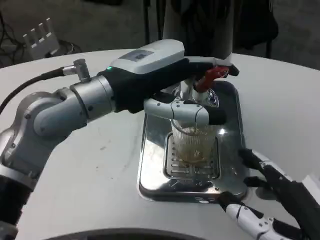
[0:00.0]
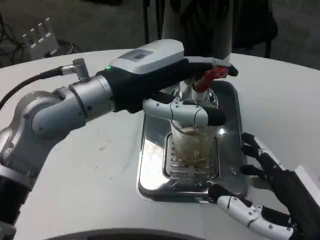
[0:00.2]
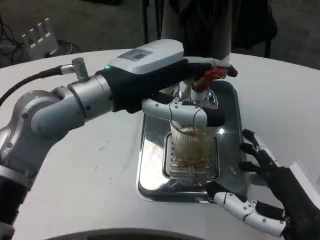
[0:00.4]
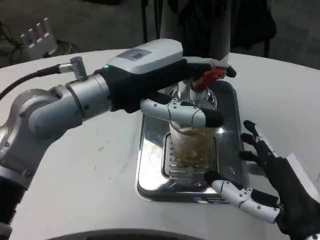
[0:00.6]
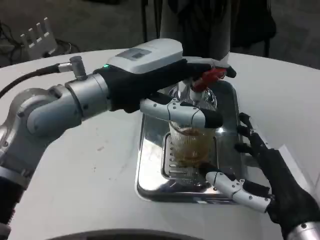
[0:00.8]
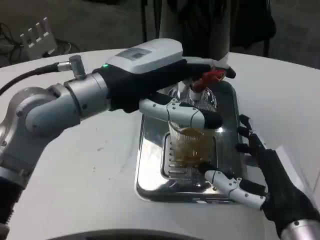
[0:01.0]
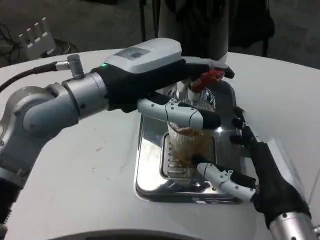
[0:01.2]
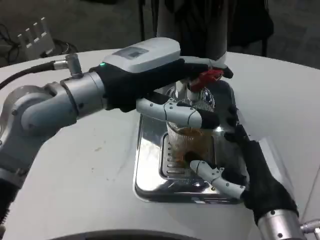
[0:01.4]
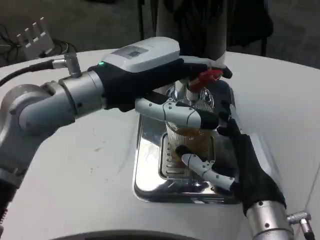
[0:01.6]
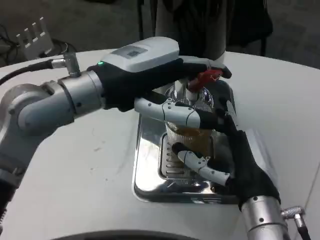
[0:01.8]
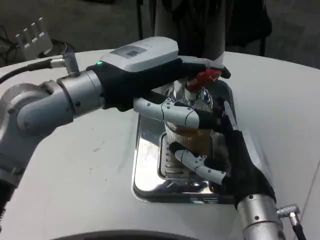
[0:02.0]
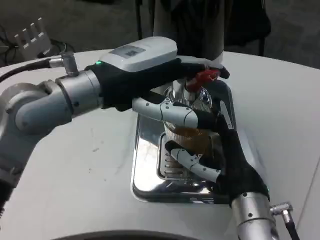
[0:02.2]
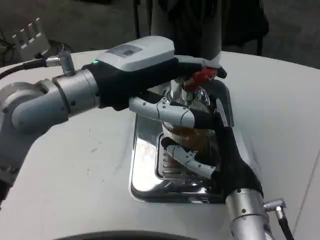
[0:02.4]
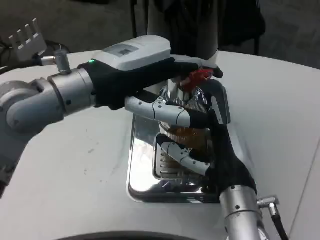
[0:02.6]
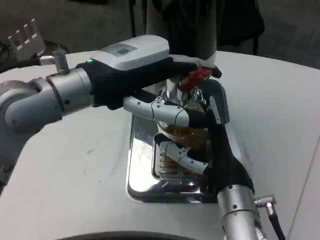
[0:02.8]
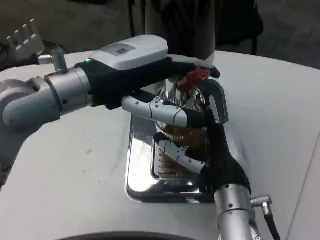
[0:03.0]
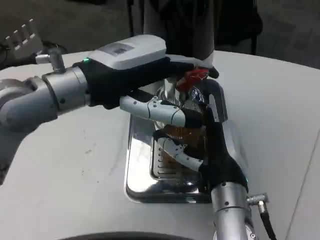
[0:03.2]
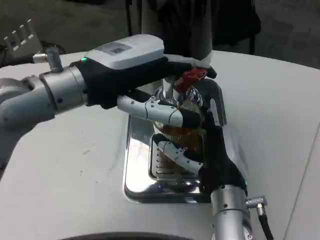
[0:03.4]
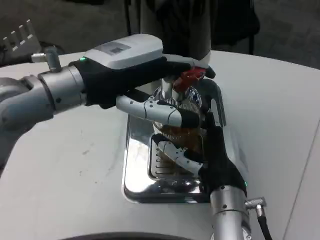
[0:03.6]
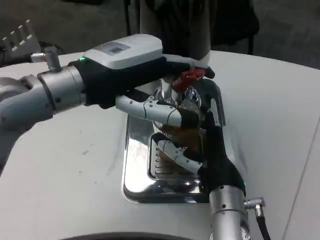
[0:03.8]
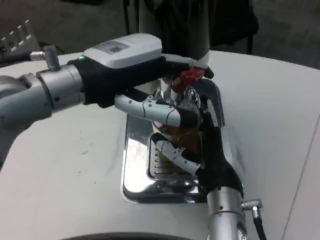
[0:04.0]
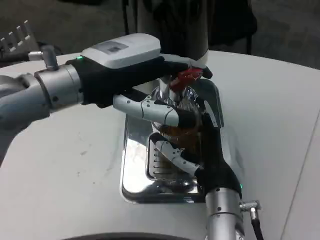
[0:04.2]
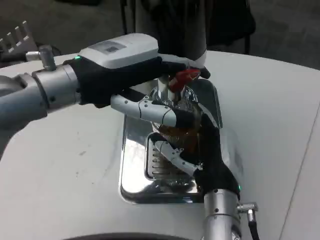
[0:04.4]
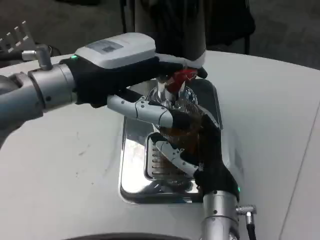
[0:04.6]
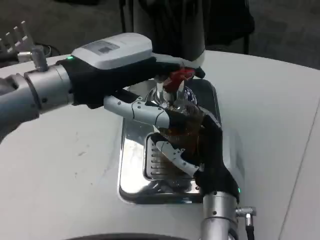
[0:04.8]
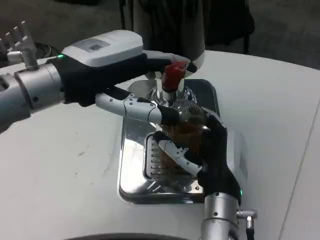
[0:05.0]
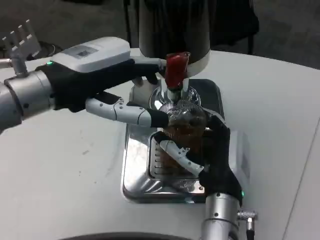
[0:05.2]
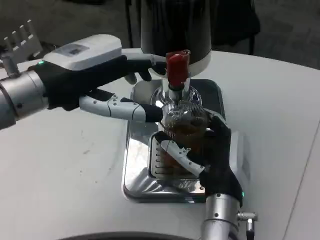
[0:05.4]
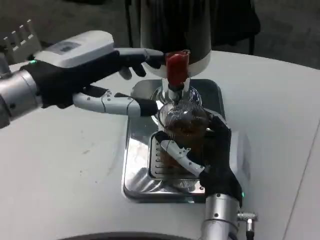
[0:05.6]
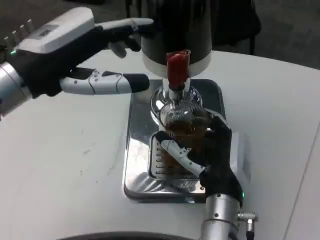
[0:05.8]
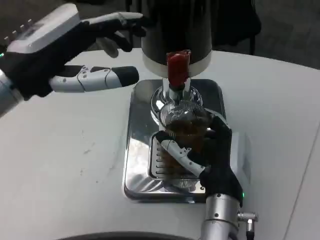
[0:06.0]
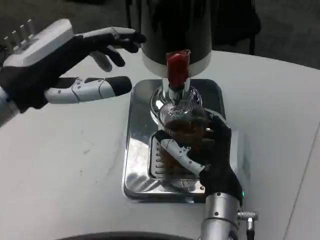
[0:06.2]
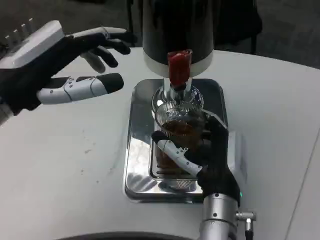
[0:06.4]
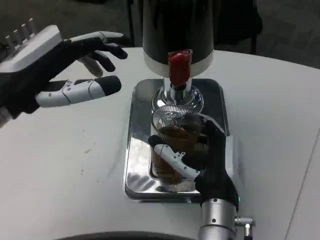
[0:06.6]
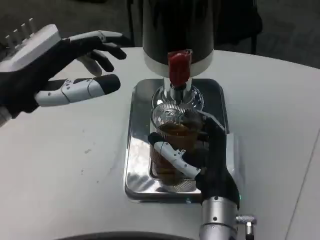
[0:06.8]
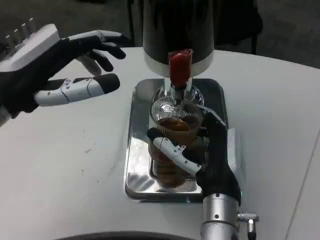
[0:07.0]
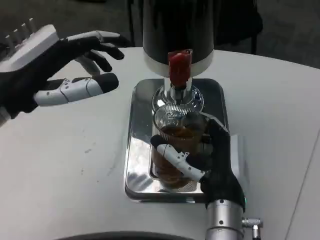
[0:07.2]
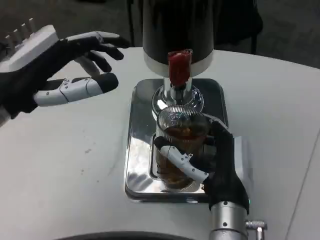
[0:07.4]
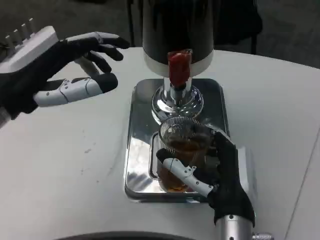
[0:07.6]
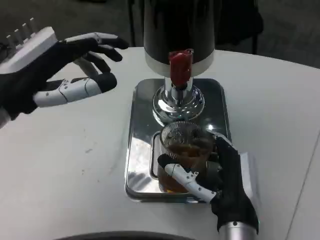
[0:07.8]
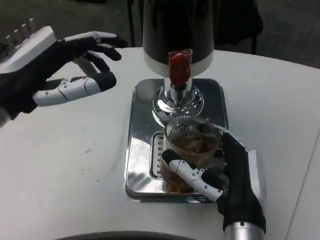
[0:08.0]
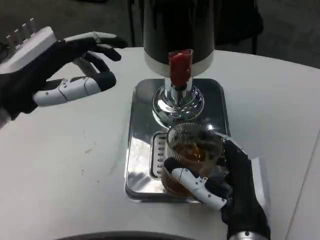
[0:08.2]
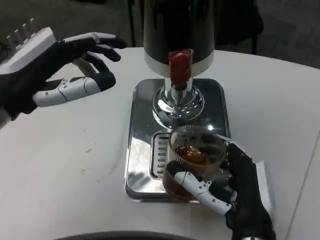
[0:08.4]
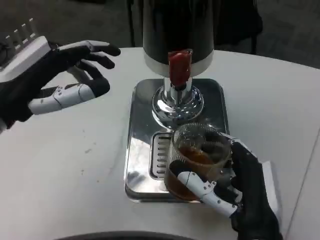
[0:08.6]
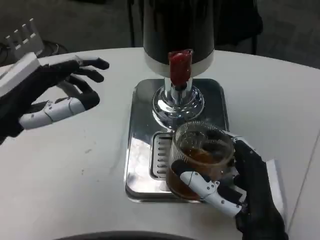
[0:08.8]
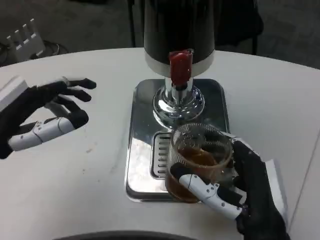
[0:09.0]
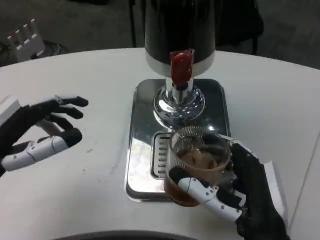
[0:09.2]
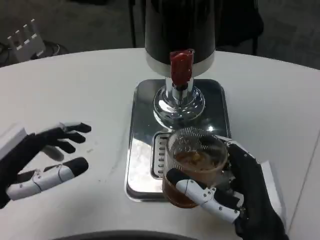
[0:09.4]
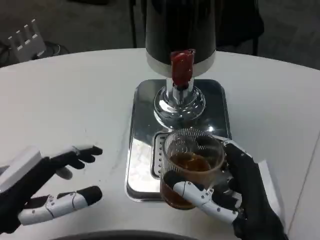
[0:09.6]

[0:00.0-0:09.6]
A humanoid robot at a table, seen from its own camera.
Task of the whole recording: Grasp the cup under the faucet to collect the drink, then remove the cup.
0:00.0 to 0:01.6: The right hand goes about 15 cm forward and to the left.
0:01.6 to 0:03.2: The right hand shifts by about 5 cm.
0:04.8 to 0:06.4: The left hand moves to the left, approximately 5 cm.
0:06.4 to 0:08.0: The right hand moves backward, roughly 5 cm.
0:08.0 to 0:09.6: The right hand ends up about 5 cm from where it was, while the left hand is displaced downward and backward by some 15 cm.

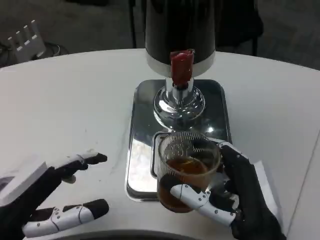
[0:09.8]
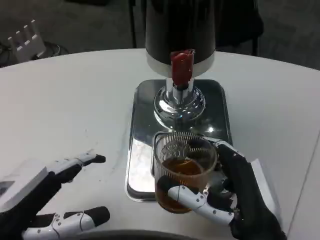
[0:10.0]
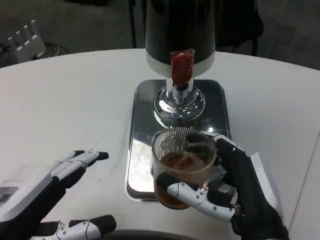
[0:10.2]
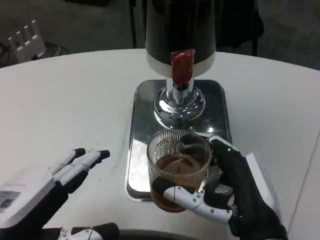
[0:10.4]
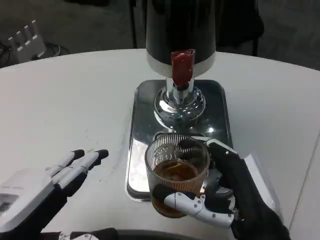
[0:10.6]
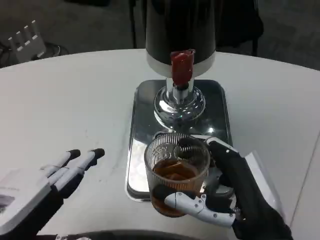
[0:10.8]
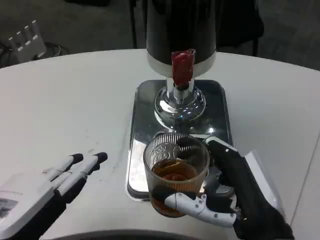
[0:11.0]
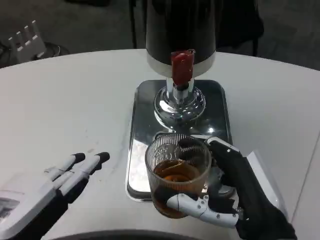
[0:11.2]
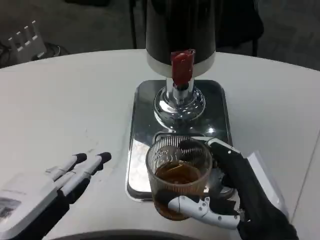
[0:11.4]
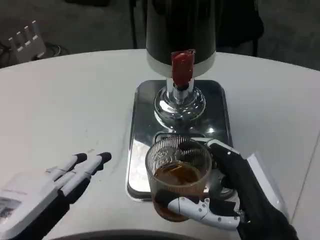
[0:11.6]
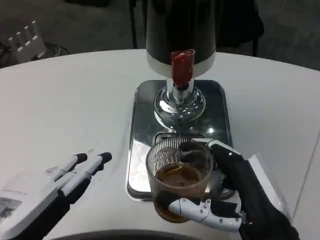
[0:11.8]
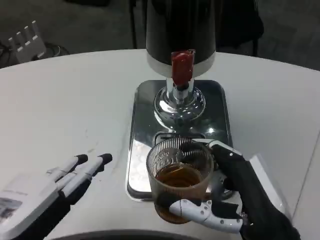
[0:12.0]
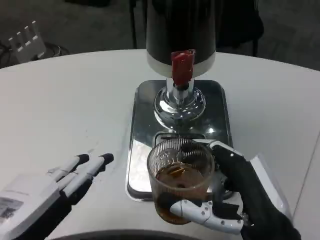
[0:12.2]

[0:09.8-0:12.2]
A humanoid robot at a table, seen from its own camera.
Task of the whole recording: Grasp the cup under the faucet to collect the drink, then remove the cup.
0:09.8 to 0:11.0: The hands move only a little.
0:11.0 to 0:12.2: Both hands stay about where they are.

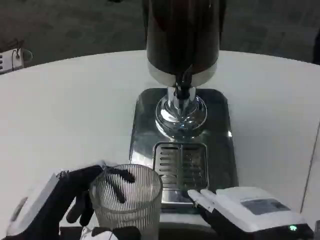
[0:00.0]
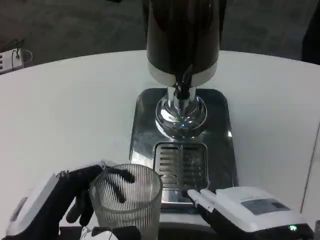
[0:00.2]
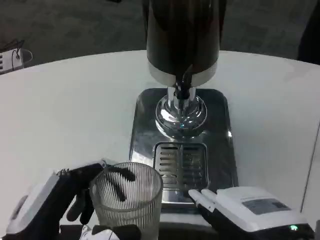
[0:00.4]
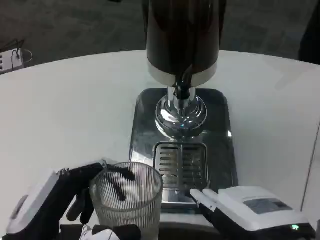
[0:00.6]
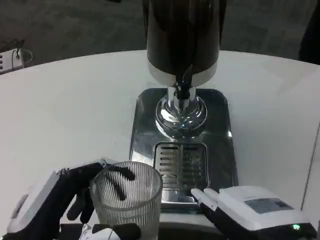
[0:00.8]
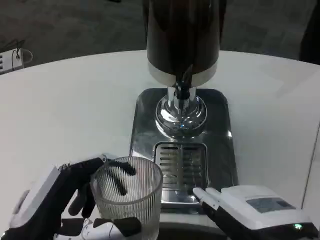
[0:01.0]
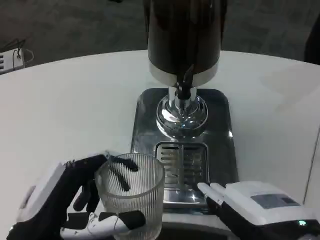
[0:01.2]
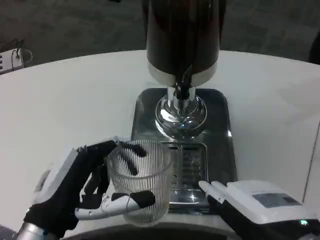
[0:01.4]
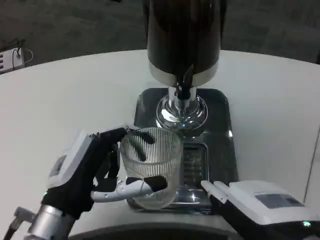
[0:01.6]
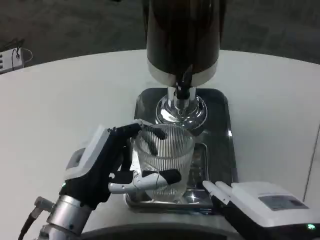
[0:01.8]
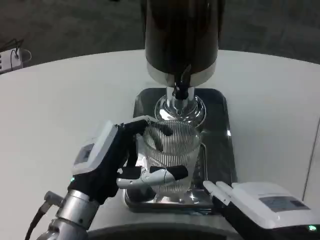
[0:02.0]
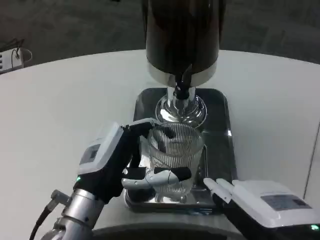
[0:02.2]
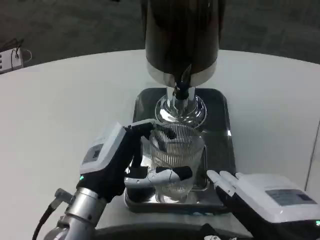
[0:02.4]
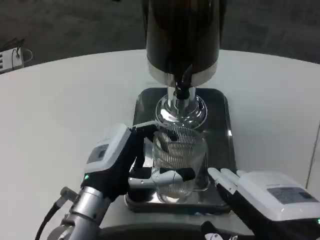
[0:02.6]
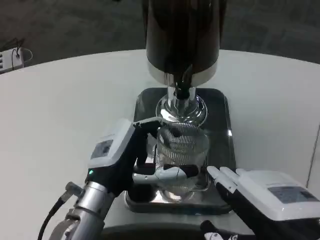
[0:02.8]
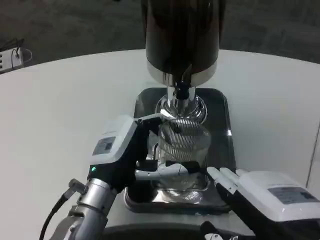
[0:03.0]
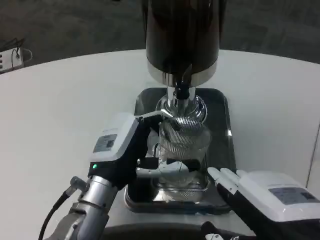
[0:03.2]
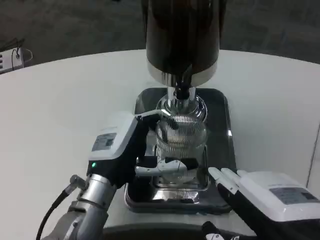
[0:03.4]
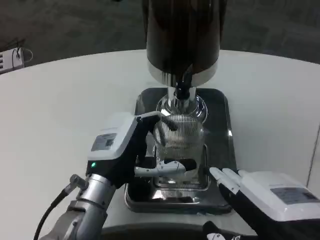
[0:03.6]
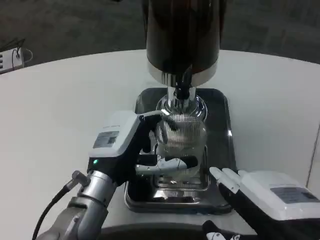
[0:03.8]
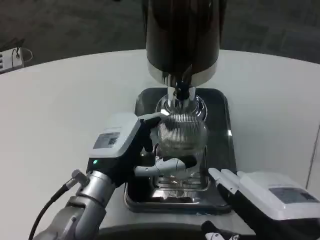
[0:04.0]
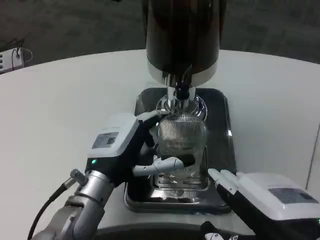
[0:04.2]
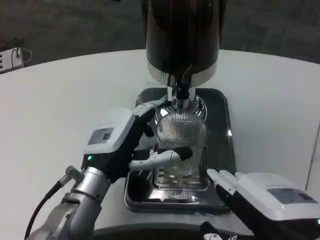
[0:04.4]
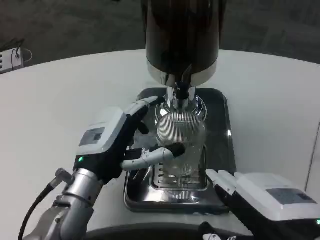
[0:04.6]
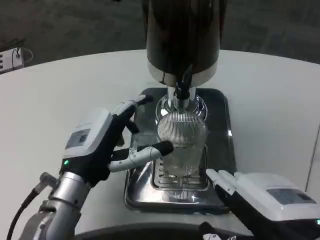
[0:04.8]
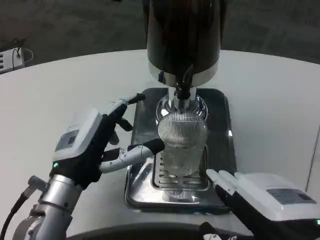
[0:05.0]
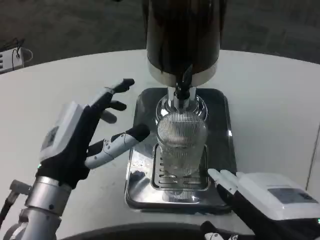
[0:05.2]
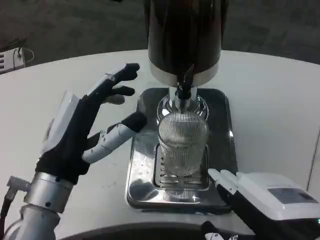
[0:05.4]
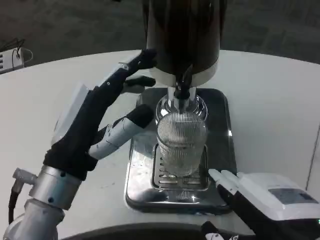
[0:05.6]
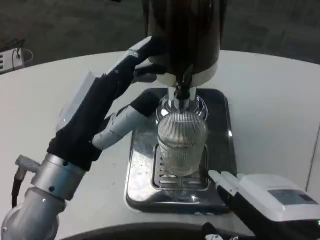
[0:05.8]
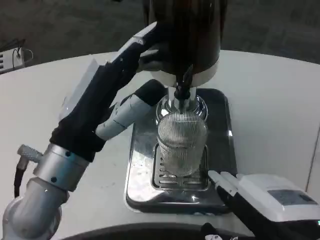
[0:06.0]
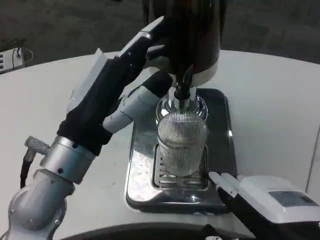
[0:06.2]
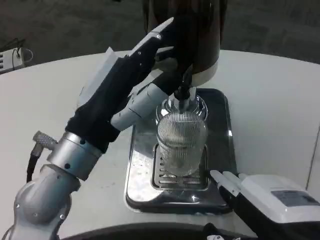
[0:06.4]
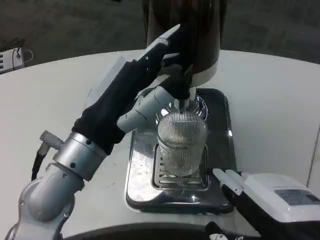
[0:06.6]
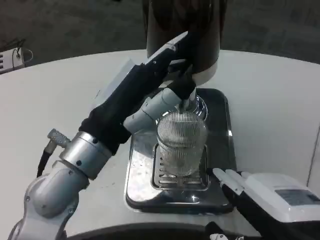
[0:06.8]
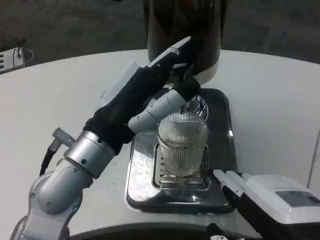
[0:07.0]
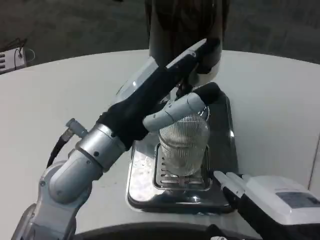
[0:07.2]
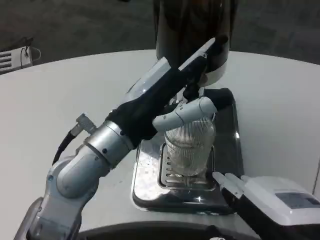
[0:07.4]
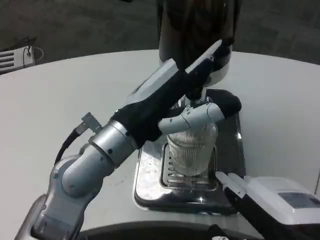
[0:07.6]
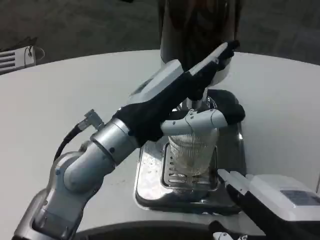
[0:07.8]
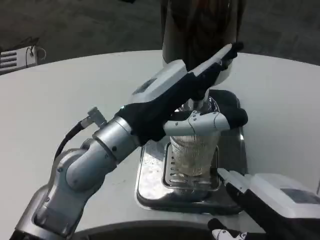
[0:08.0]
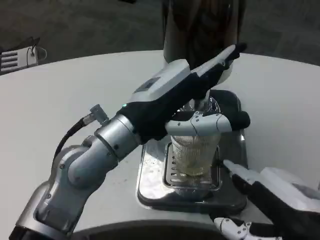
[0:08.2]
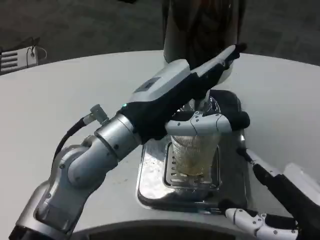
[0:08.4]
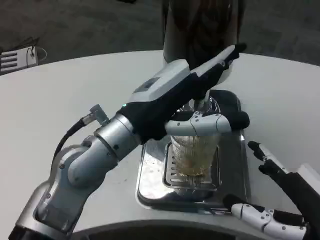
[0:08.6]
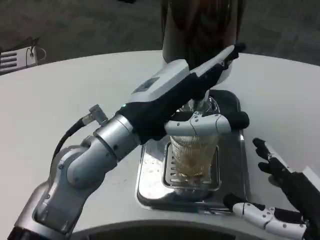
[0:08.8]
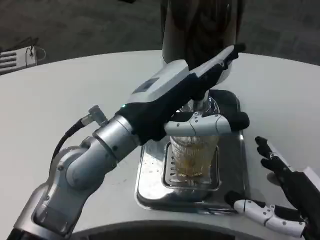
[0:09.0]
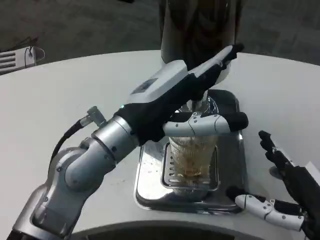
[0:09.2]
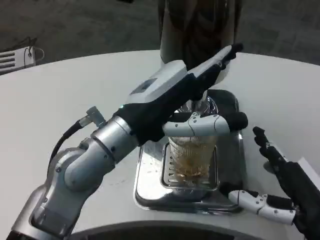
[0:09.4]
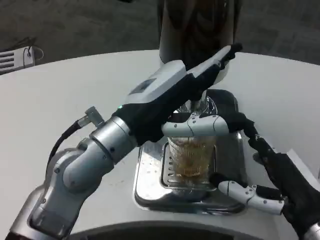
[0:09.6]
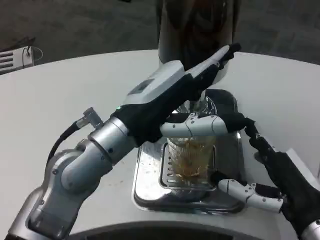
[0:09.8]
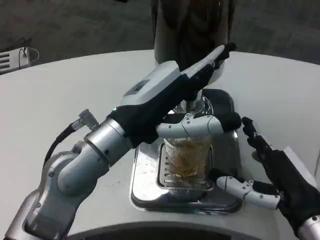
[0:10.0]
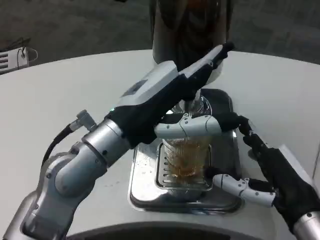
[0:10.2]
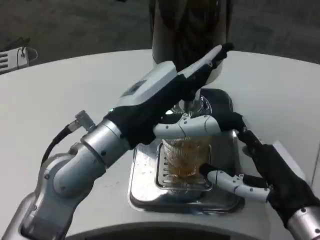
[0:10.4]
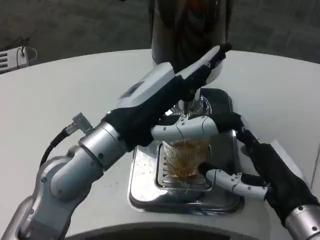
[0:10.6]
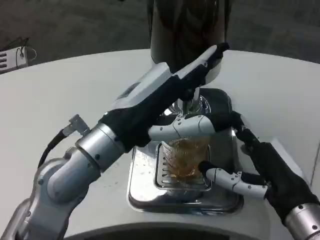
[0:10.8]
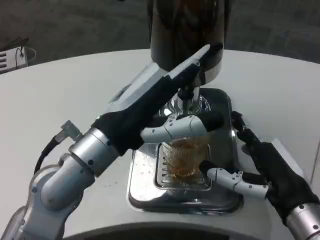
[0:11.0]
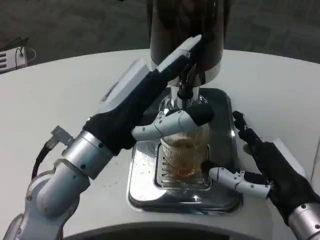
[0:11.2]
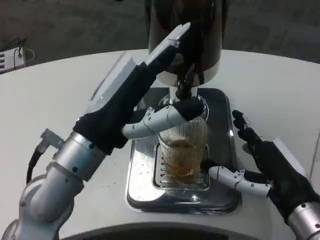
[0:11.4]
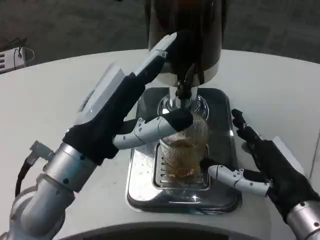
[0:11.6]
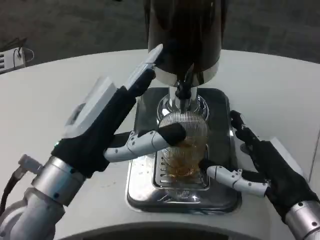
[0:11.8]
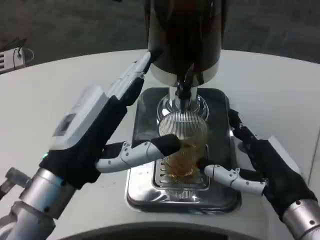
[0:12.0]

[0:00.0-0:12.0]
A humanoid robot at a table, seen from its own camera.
Task of the whole recording: Grasp the cup under the faucet to collect the drink, then remove the cup.
0:00.0 to 0:01.6: The left hand travels forward by roughly 5 cm.
0:01.6 to 0:03.0: The left hand moves forward, roughly 5 cm.
0:03.0 to 0:04.4: The hands make only small movements.
0:04.4 to 0:06.0: The left hand moves upward and backward, about 10 cm.
0:06.0 to 0:07.6: The left hand changes place by about 5 cm.
0:07.6 to 0:09.0: The right hand moves downward, some 5 cm.
0:09.0 to 0:10.4: The right hand moves forward, approximately 5 cm.
0:10.4 to 0:12.0: The left hand shifts approximately 5 cm backward.
